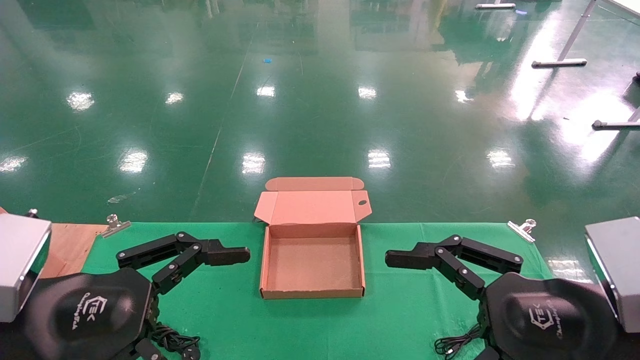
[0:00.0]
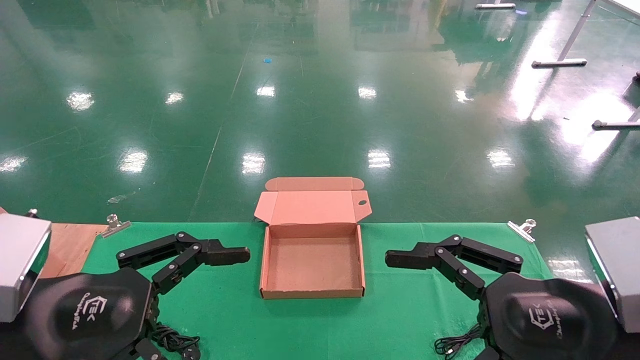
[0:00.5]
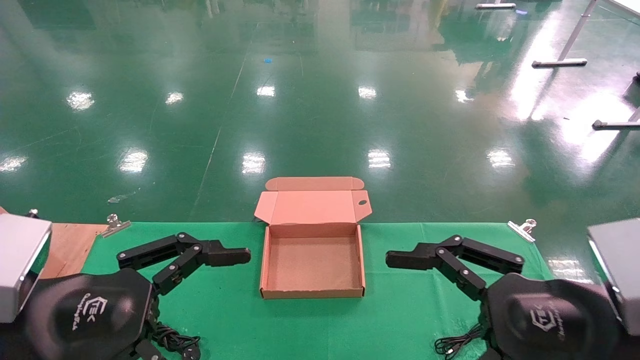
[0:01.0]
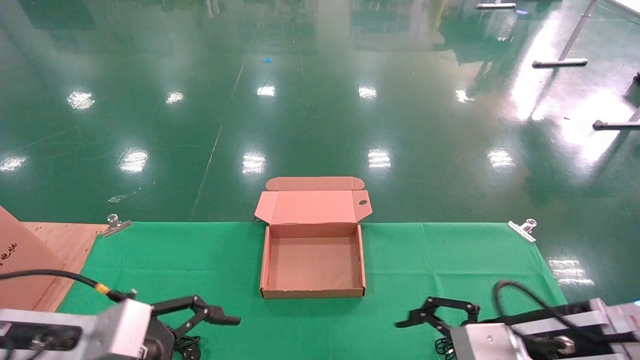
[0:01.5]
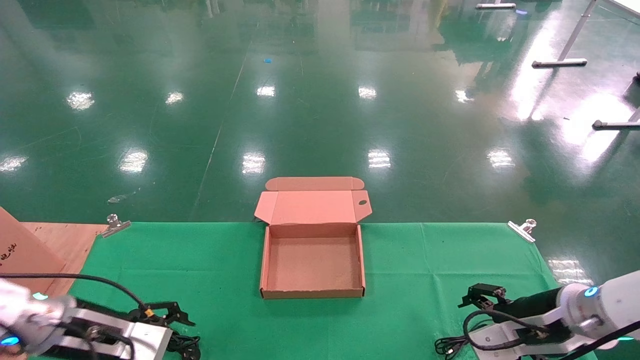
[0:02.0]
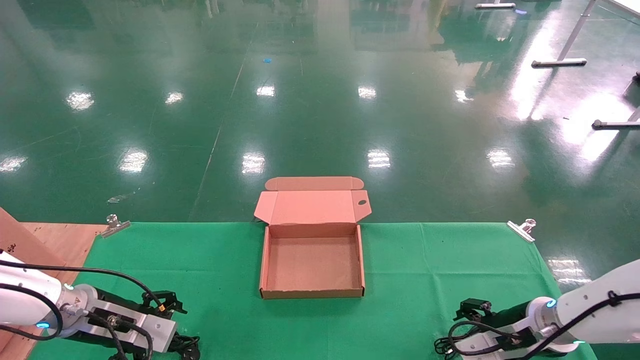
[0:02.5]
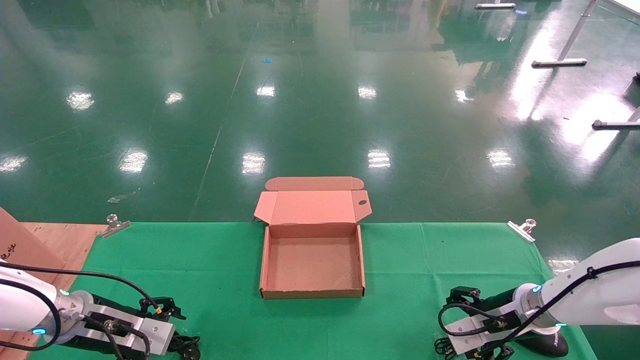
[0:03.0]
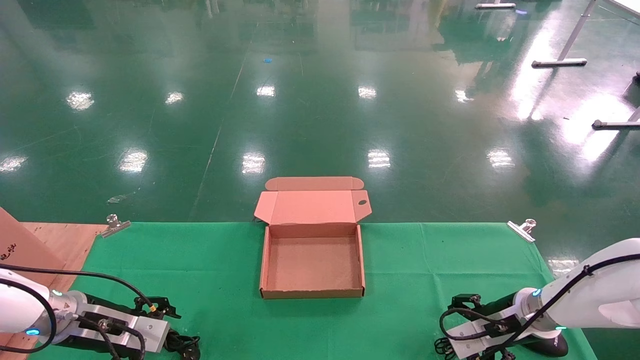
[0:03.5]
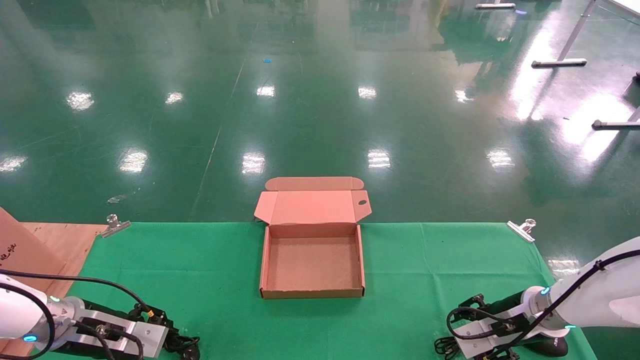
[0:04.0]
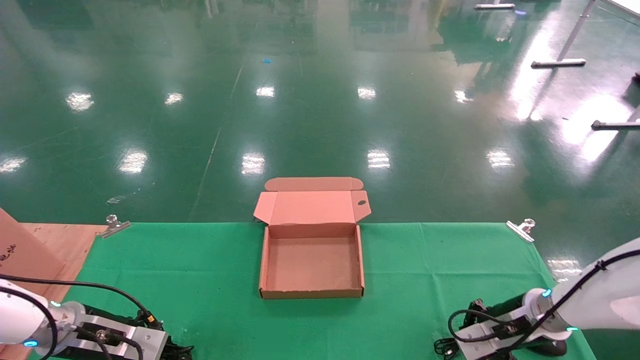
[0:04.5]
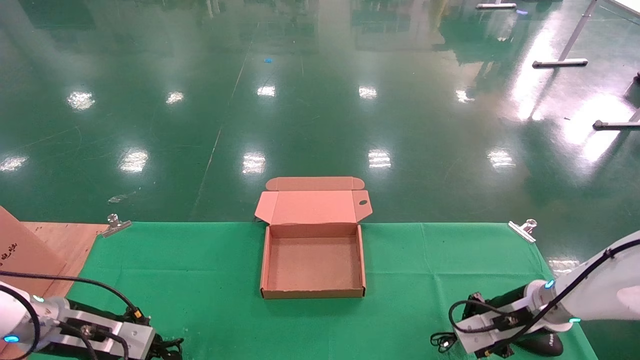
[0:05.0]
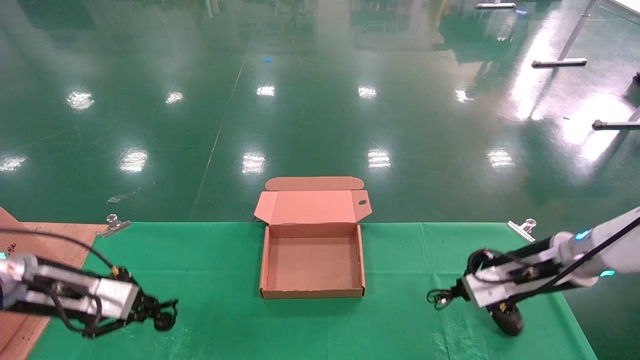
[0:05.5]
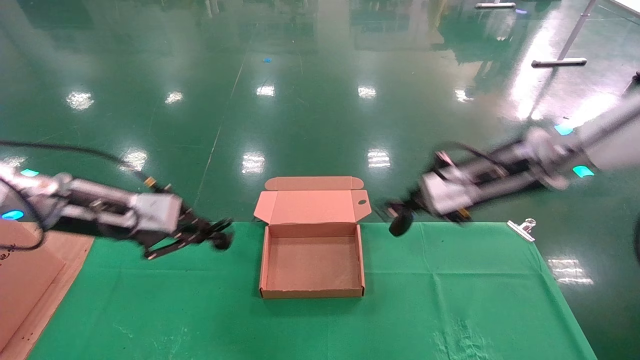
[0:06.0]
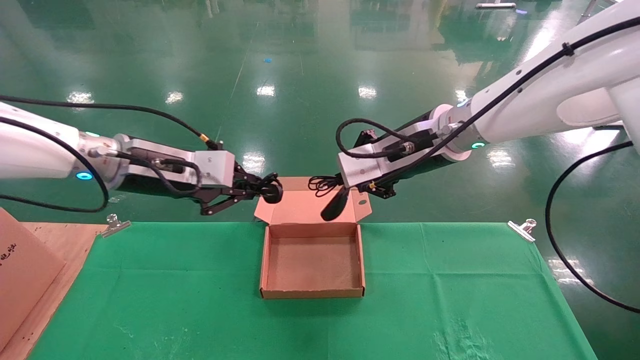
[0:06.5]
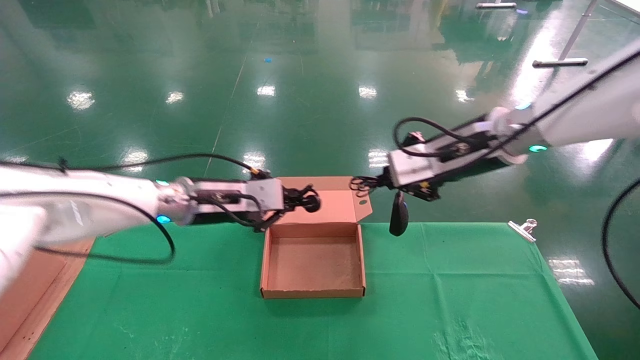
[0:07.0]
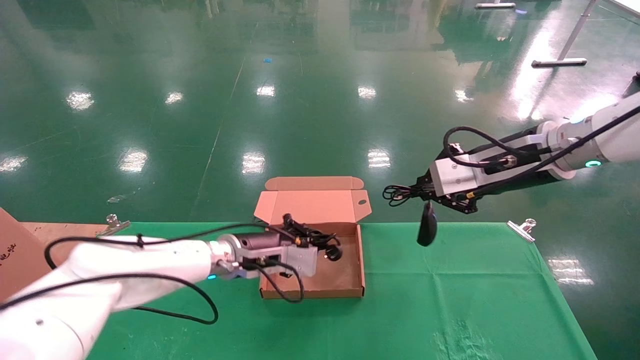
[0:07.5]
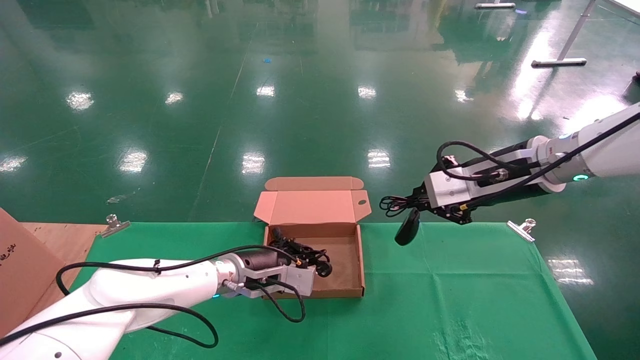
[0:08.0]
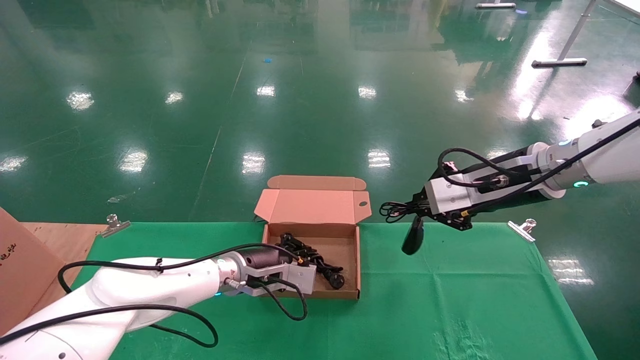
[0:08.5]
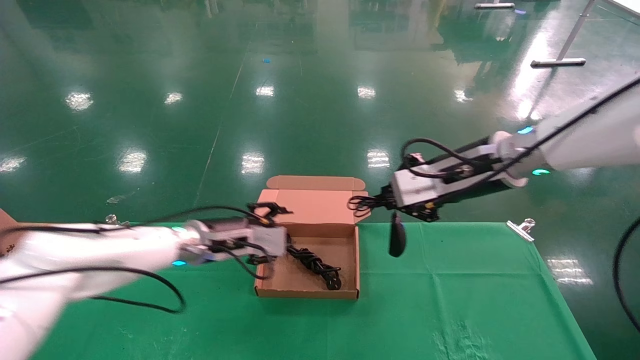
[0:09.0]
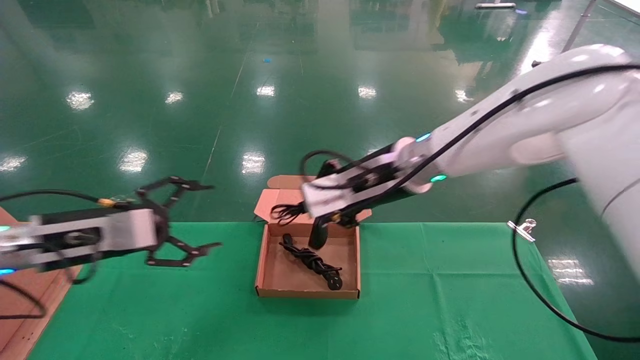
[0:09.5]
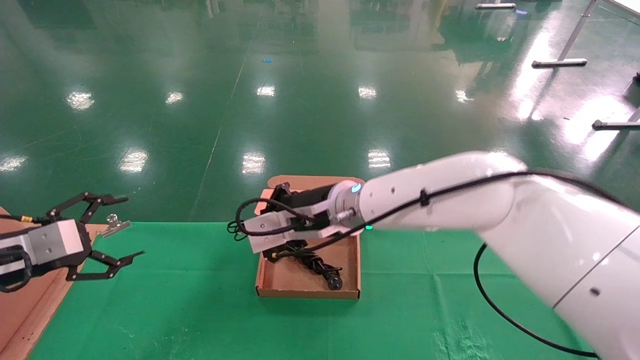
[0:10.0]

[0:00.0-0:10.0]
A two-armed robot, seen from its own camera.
Step, 2.0 to 7.0 s: Grab and lift both the mouse and power cord from the accessory packaging area at the same time.
0.0 to 2.0 s: The grippers both shift forward and downward by roughly 20 cm.
2.0 to 4.0 s: The right gripper goes some 10 cm forward and downward, and closes its fingers. The left gripper changes place by roughly 5 cm.
4.0 to 6.0 s: The two grippers go roughly 20 cm upward. The left gripper closes; the right gripper closes up.
6.0 to 8.0 s: The right gripper reaches approximately 10 cm to the left, then returns. The left gripper goes about 25 cm to the right, downward and forward.
8.0 to 10.0 s: The left gripper goes roughly 35 cm to the left and backward, and opens up. The right gripper heads to the left, covering approximately 25 cm.

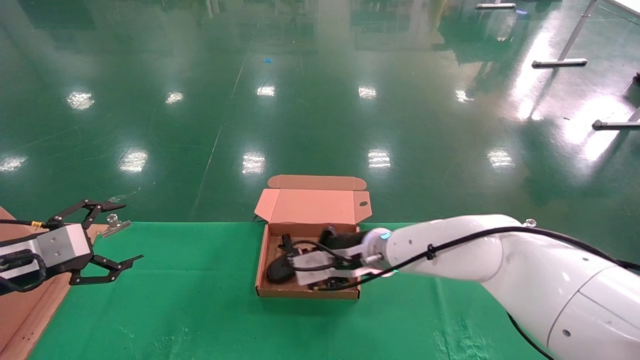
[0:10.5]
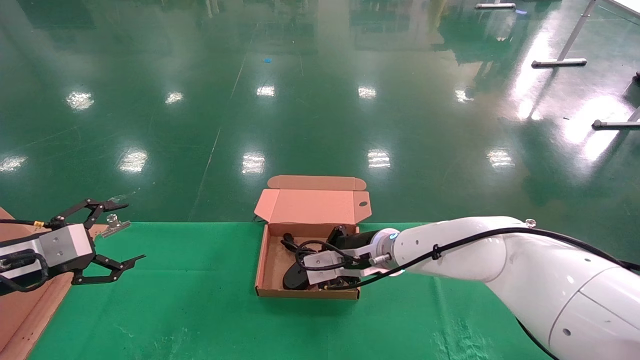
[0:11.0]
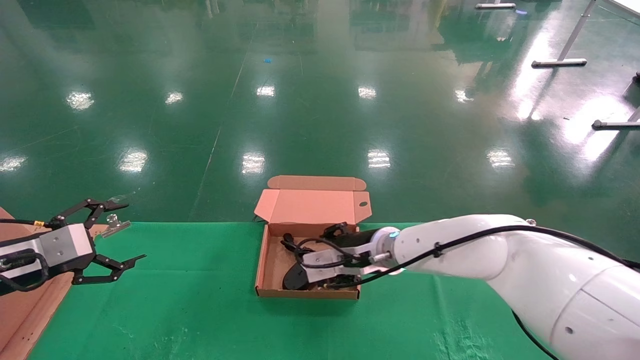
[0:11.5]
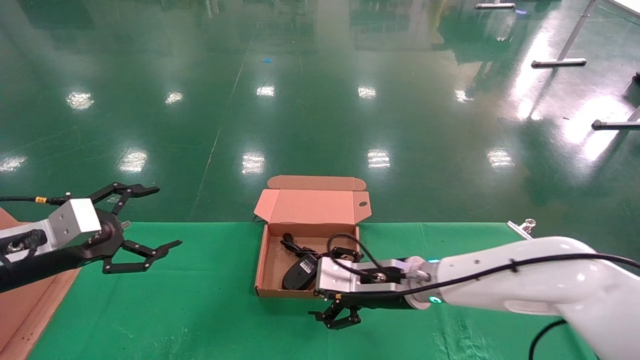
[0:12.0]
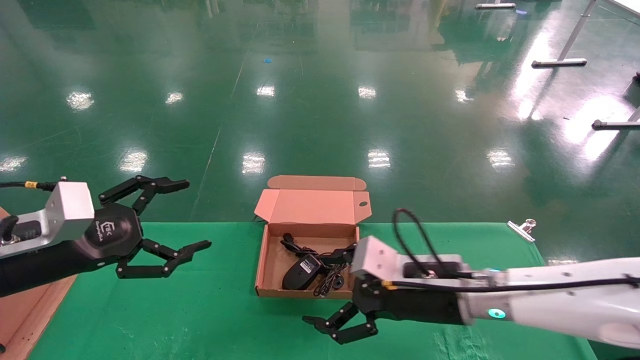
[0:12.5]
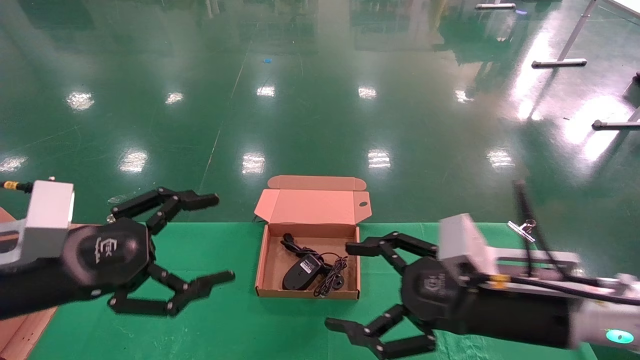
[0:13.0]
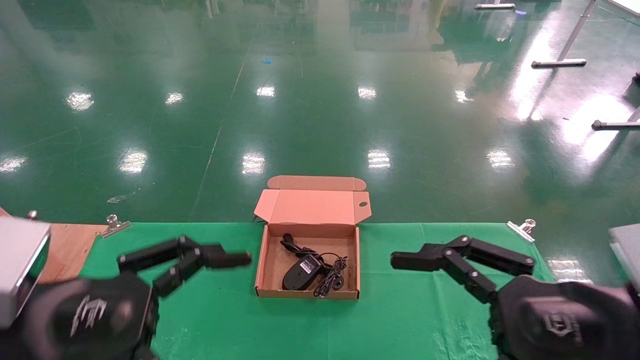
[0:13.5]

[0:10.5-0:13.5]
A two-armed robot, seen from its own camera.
Step, 10.5 to 13.0 s: Place the mouse and power cord into the box.
10.5 to 12.0 s: The right gripper shifts by approximately 10 cm, and opens its fingers, while the left gripper moves to the right, about 5 cm.
12.0 to 13.5 s: The right gripper moves backward, to the right and upward, approximately 30 cm, while the left gripper shifts approximately 20 cm backward and to the right.

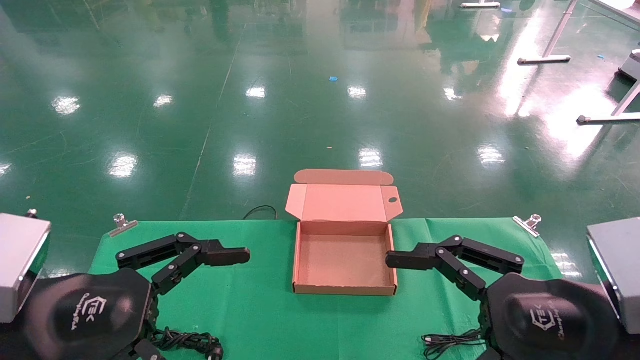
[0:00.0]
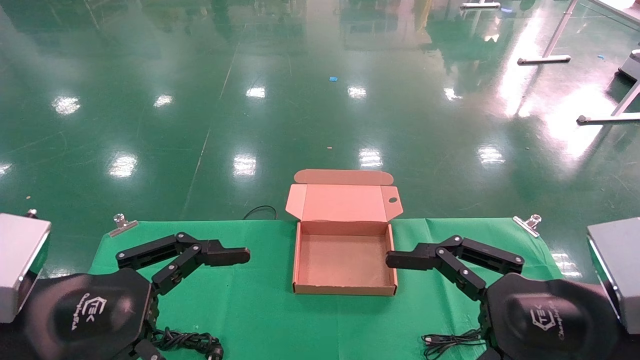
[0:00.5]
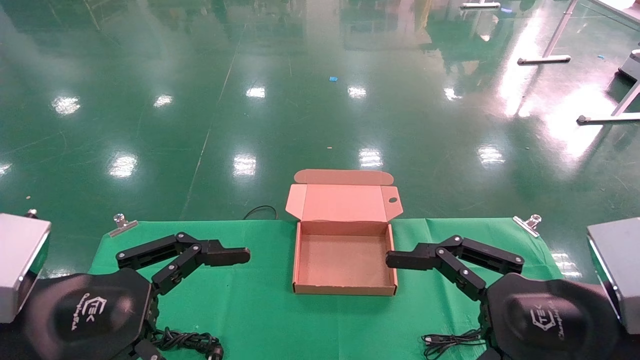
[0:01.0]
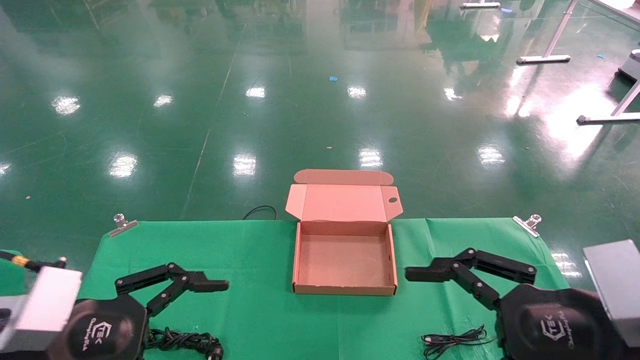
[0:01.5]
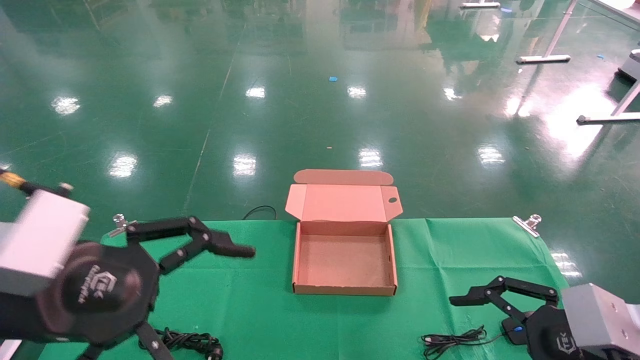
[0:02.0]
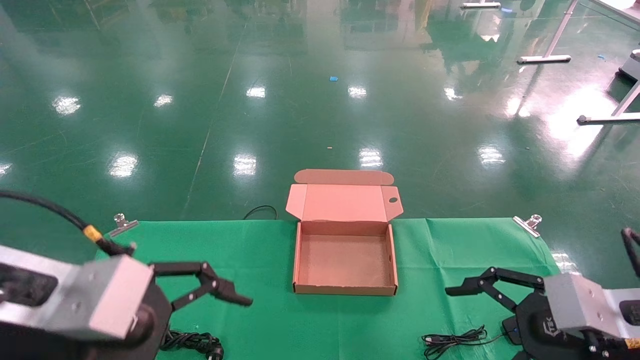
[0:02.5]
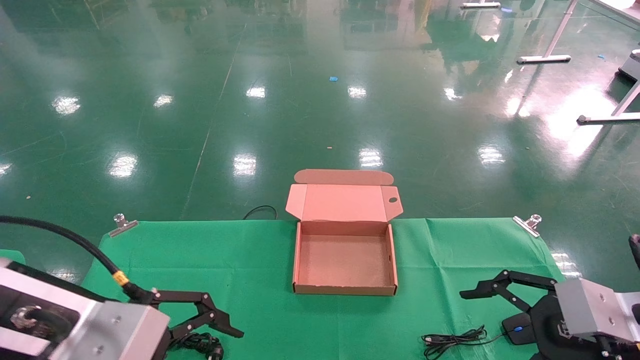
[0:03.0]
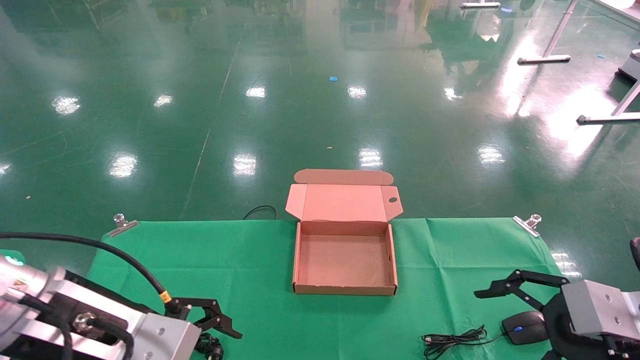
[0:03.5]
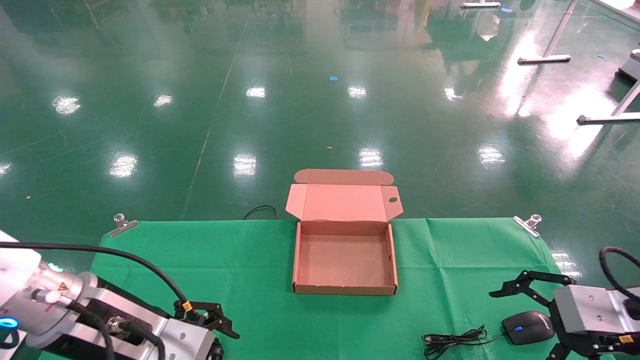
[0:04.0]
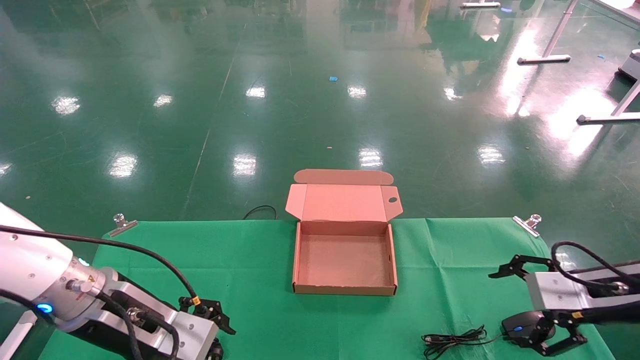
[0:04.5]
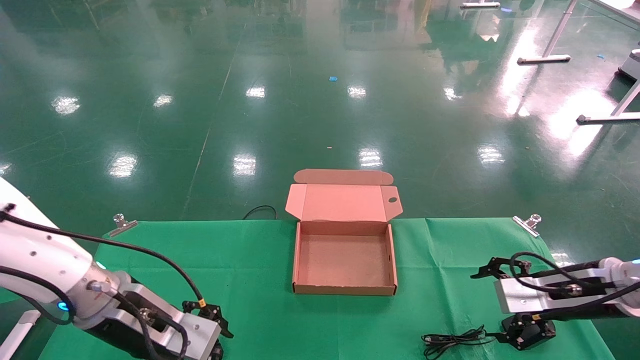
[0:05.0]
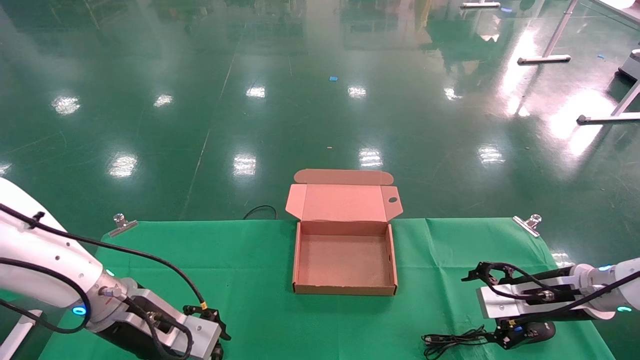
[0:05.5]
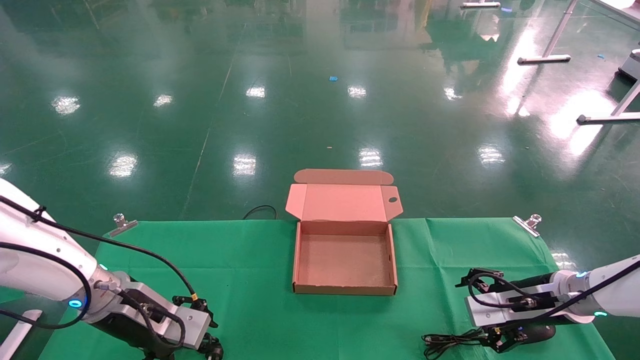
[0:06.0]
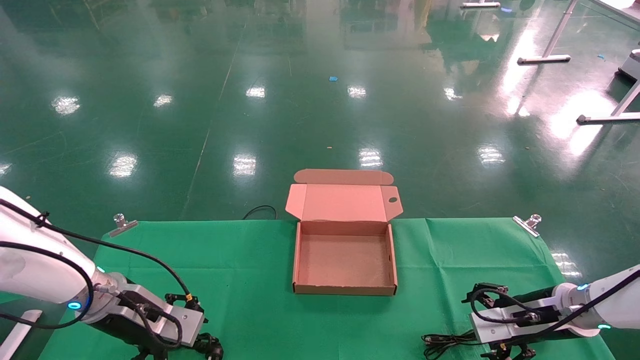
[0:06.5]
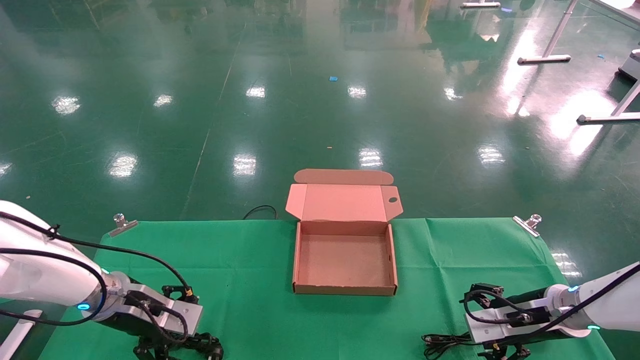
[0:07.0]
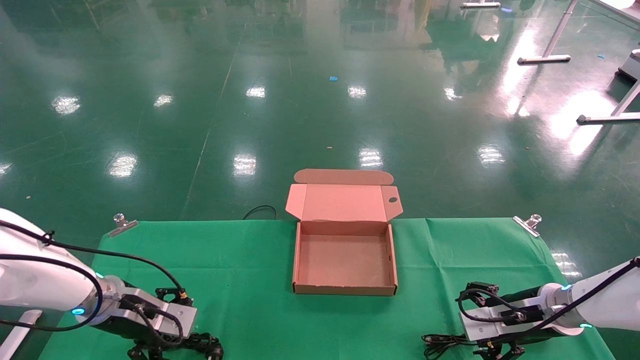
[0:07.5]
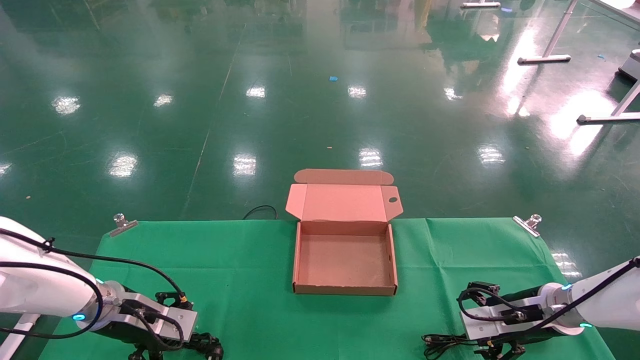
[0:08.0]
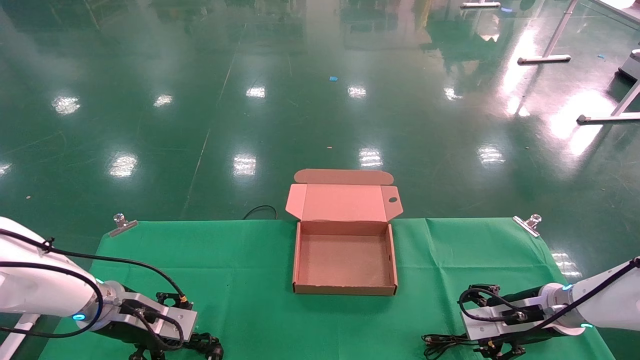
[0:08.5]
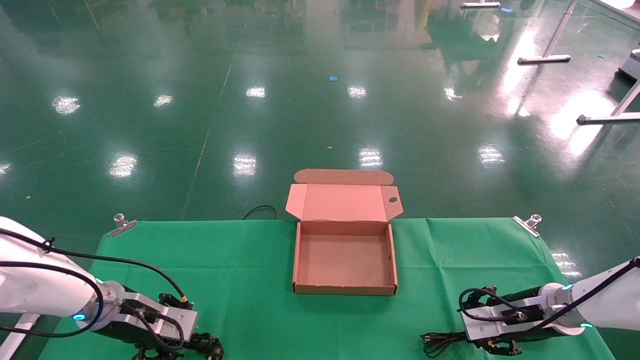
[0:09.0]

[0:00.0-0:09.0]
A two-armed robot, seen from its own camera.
0.0 to 2.0 s: The left gripper heads upward, covering about 5 cm; the right gripper moves to the right, roughly 5 cm.
2.0 to 4.5 s: The left gripper goes roughly 20 cm forward and downward, while the right gripper moves forward and to the right, roughly 15 cm.
4.5 to 7.0 s: The left gripper is displaced forward, downward and to the left by approximately 15 cm, while the right gripper shifts approximately 10 cm downward and forward.
7.0 to 9.0 s: The right gripper closes its fingers; the left gripper closes its fingers.
